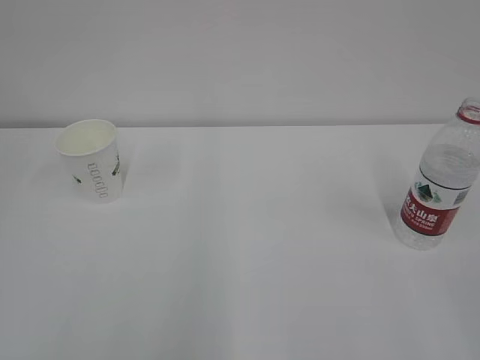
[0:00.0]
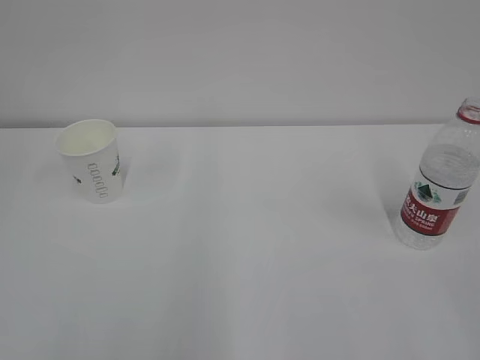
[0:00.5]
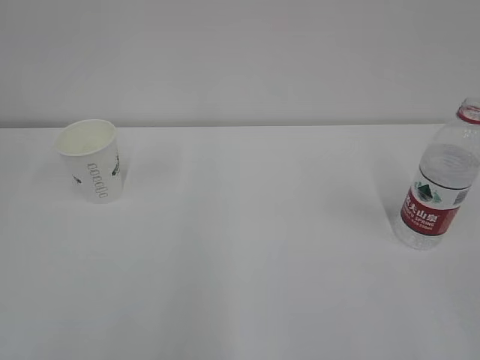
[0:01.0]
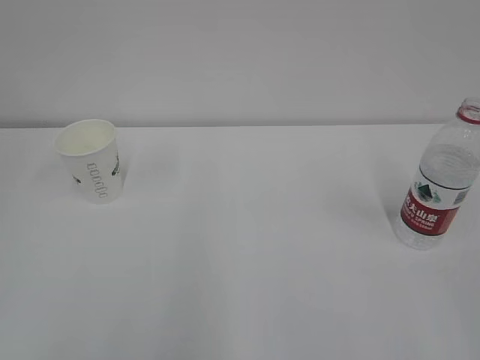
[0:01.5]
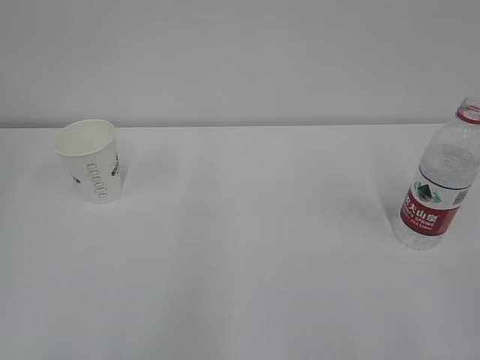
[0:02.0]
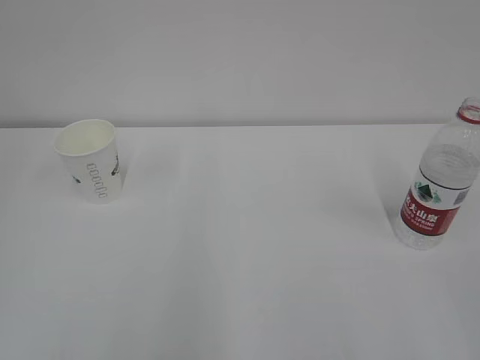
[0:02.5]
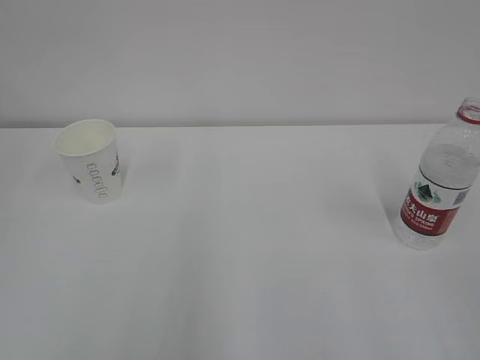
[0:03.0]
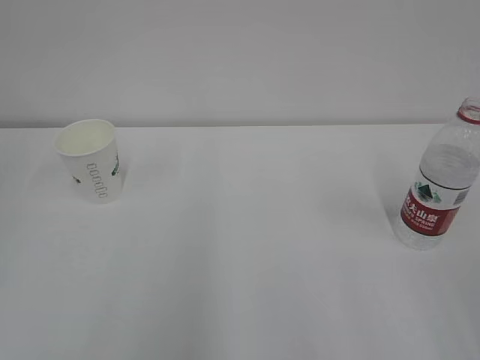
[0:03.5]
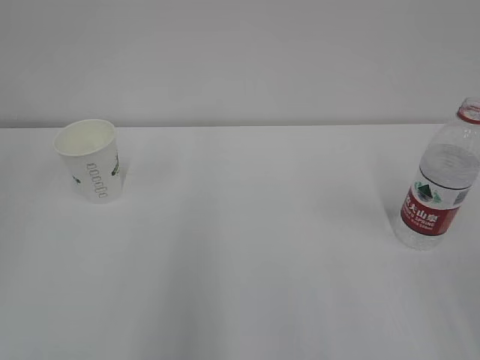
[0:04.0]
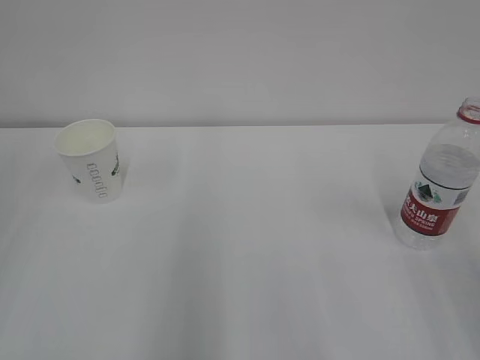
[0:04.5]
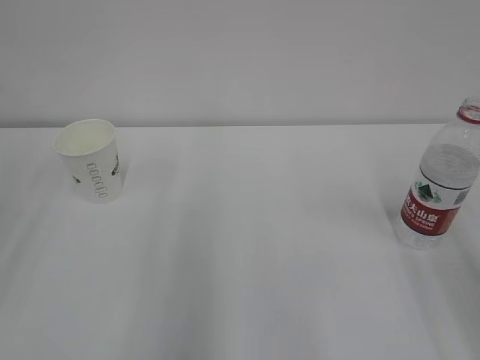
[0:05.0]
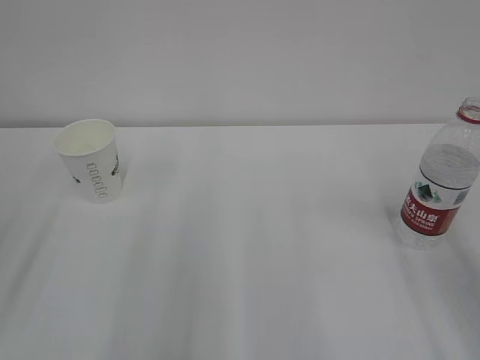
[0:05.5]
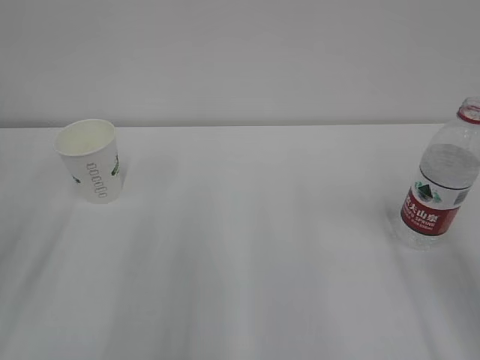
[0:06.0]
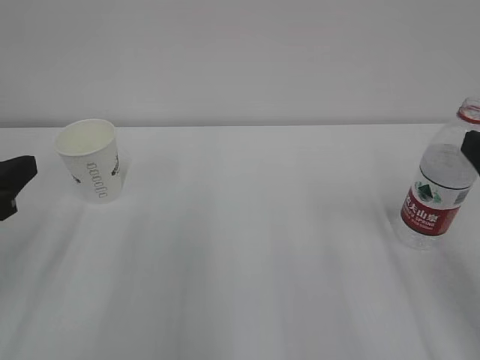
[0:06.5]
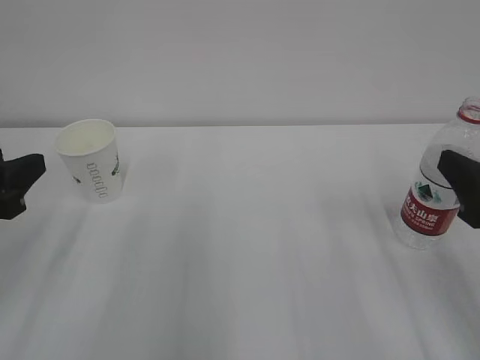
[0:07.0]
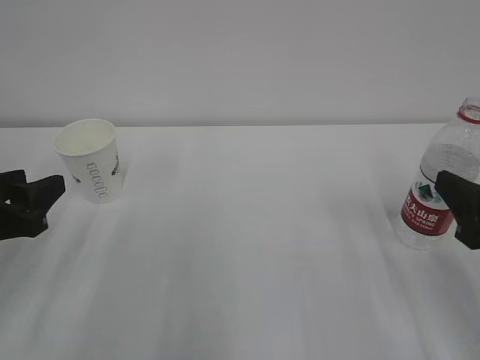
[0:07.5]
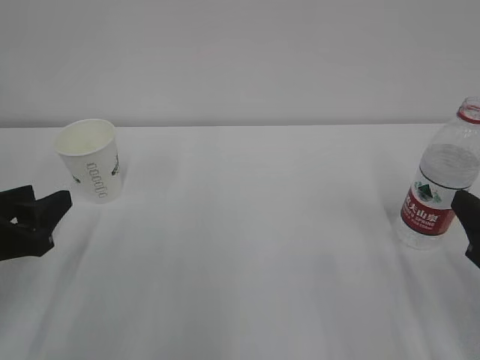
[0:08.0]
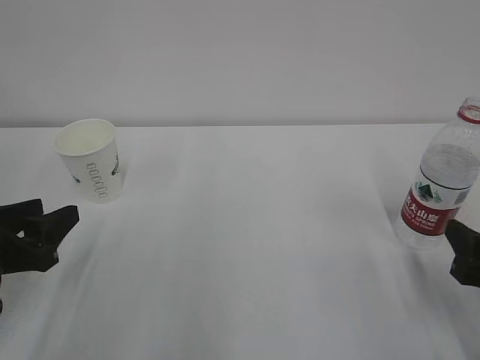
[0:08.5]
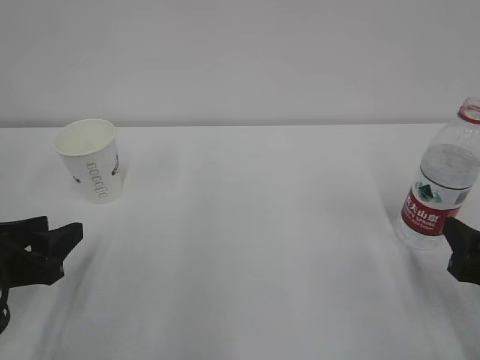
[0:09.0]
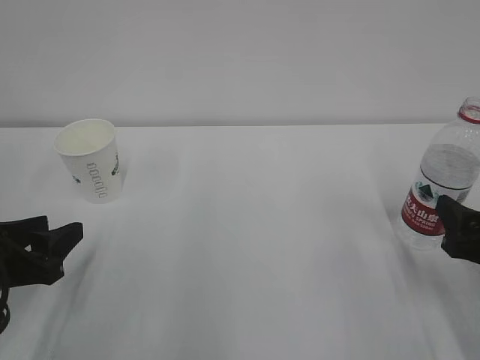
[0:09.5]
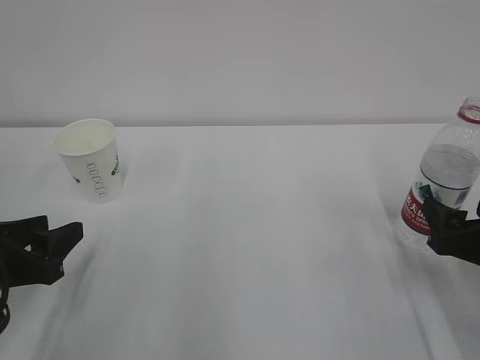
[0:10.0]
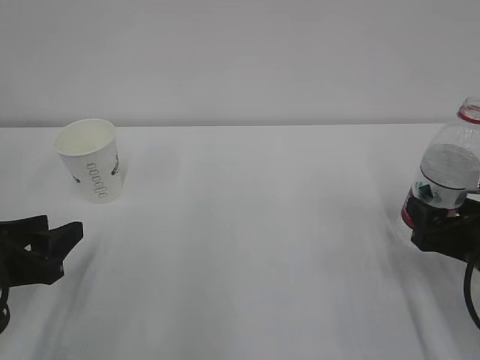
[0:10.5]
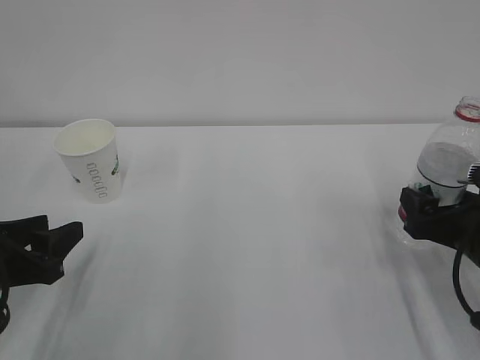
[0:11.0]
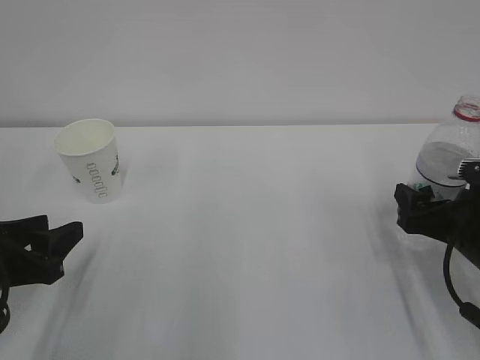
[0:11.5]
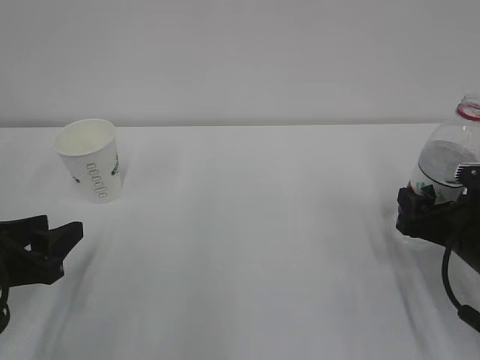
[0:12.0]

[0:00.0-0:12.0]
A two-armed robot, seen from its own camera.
0:06.0 to 0:08.0: Both grippers travel together downward, approximately 10 cm.
0:08.0 to 0:10.0: The right gripper moves some 5 cm, and opens up.
0:10.0 to 0:12.0: The right gripper changes place by about 5 cm, and closes up.

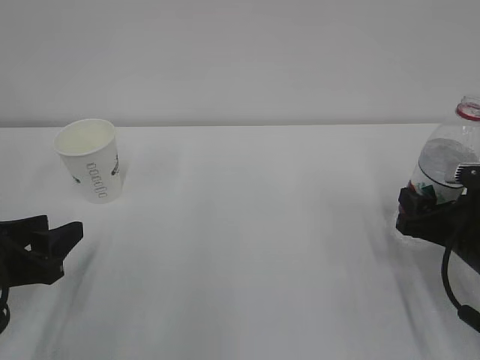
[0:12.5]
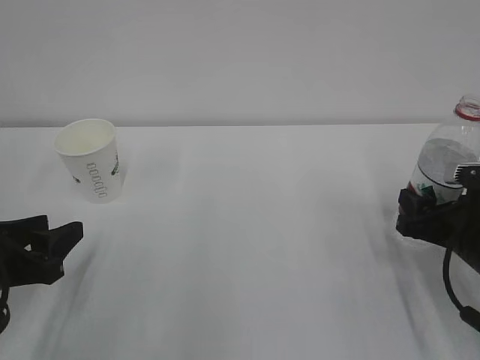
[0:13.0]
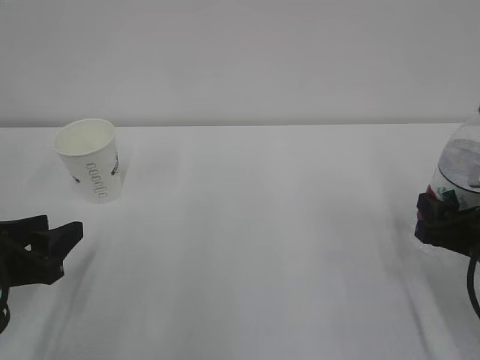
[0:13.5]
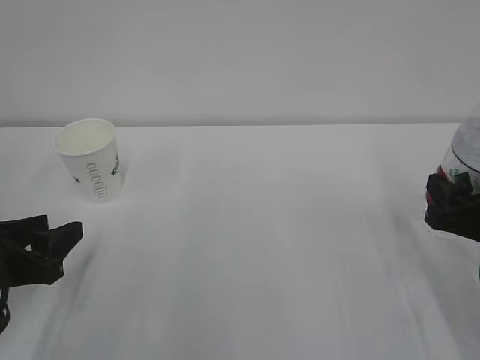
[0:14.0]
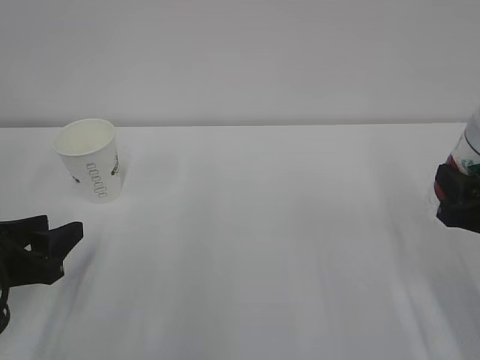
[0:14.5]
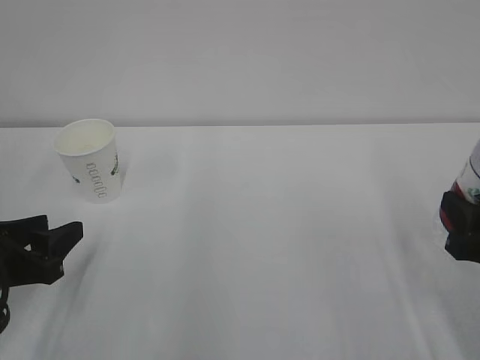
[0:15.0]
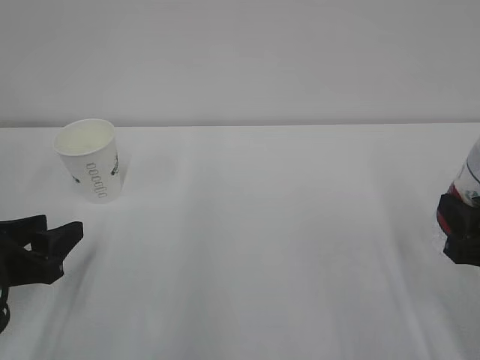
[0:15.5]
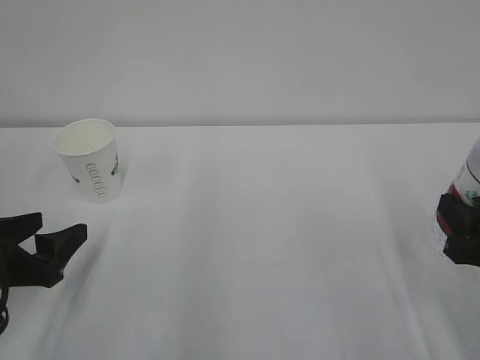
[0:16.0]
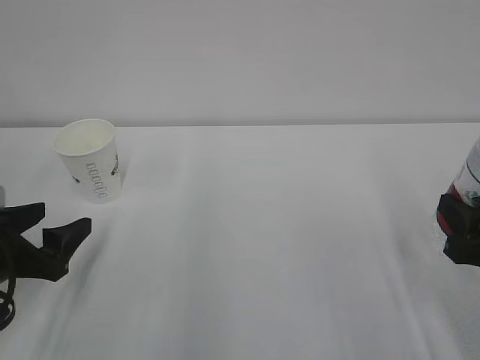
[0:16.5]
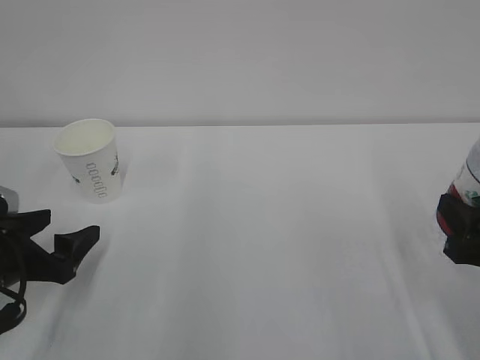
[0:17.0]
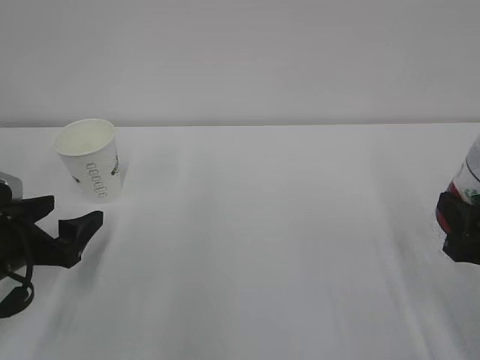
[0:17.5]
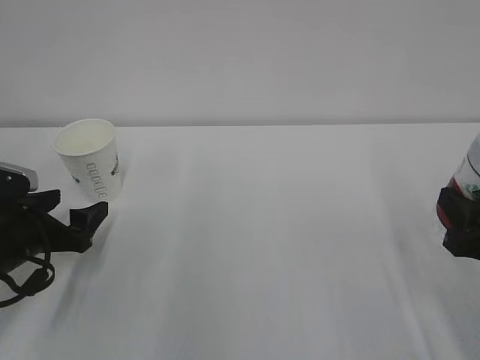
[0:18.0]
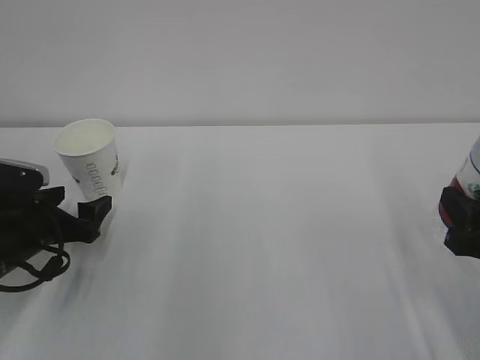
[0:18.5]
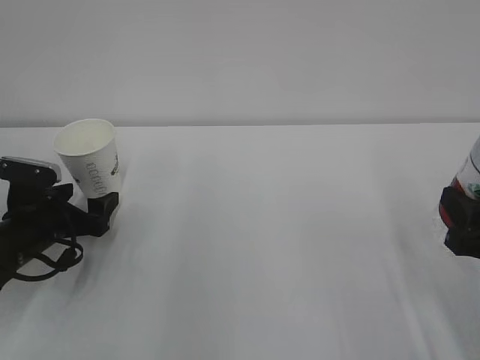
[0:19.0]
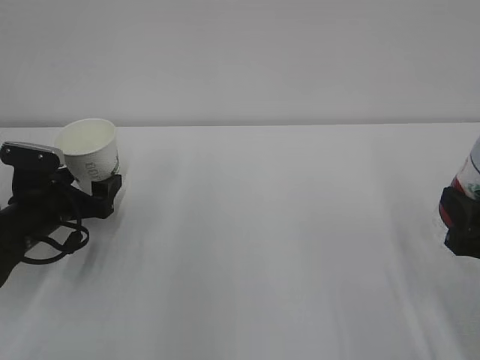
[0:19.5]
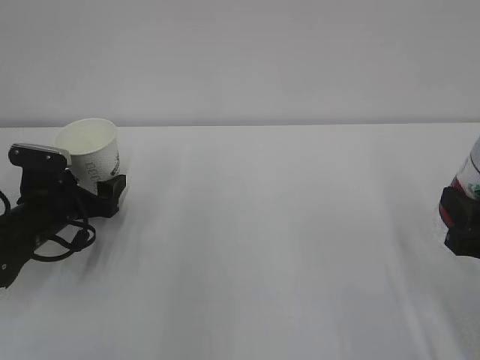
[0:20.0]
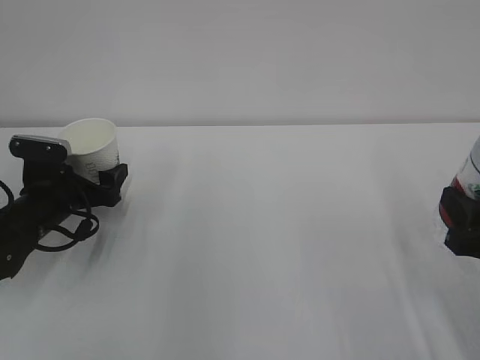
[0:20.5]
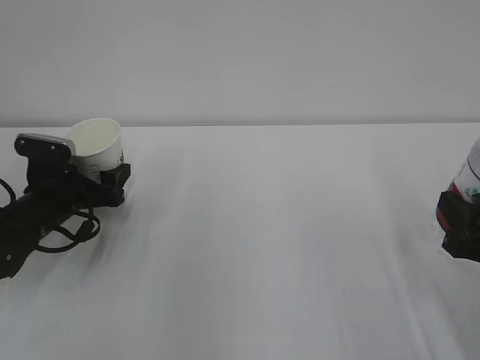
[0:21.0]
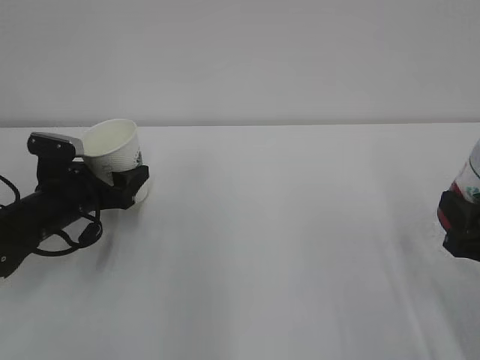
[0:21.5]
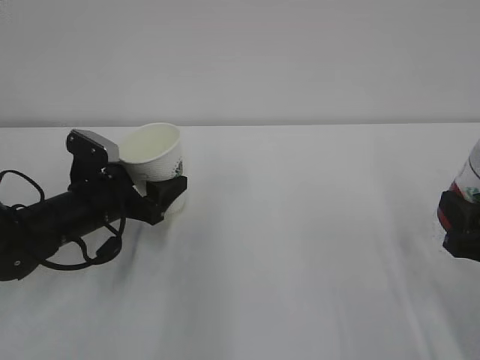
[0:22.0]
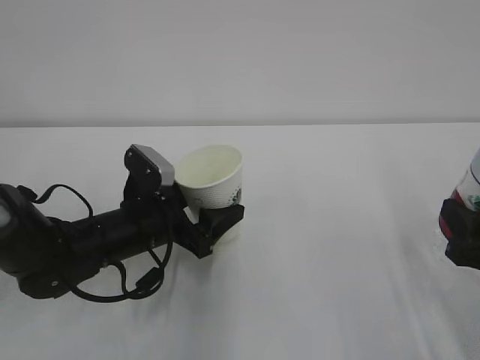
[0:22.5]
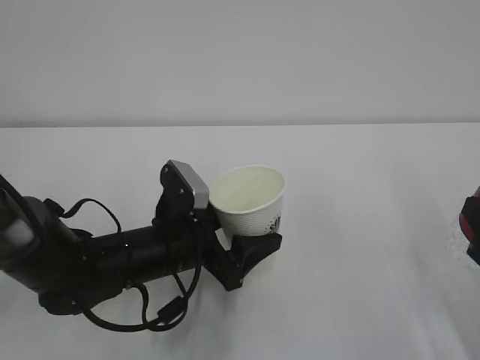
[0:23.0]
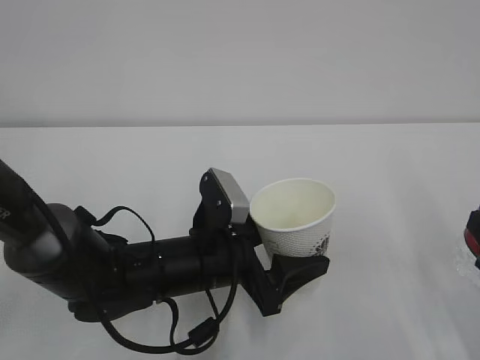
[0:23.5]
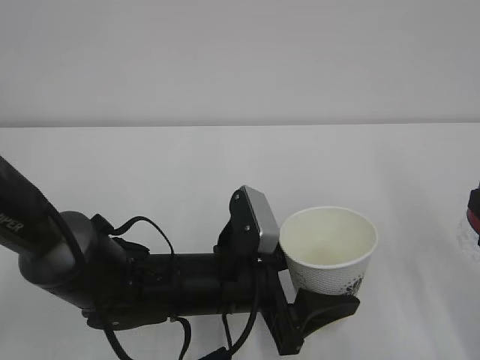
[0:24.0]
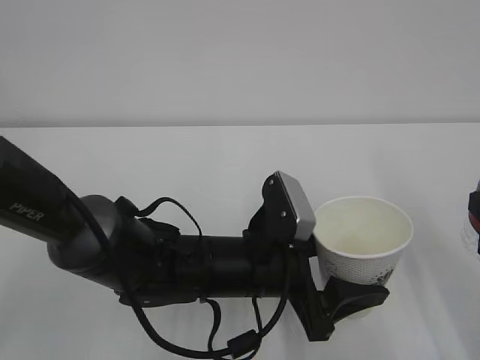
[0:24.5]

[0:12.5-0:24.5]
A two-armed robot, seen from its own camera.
0:12.5 to 0:14.5: The right gripper goes roughly 5 cm upward.
0:14.5 to 0:16.5: The left gripper opens its fingers.
0:16.5 to 0:18.5: The left gripper goes approximately 5 cm forward.
0:18.5 to 0:20.5: The left gripper heads forward, covering some 5 cm.
0:20.5 to 0:22.5: The left gripper goes some 15 cm to the right and backward, and closes up.
0:22.5 to 0:24.5: The left gripper heads to the right and backward, covering about 15 cm; the right gripper heads upward, covering about 5 cm.

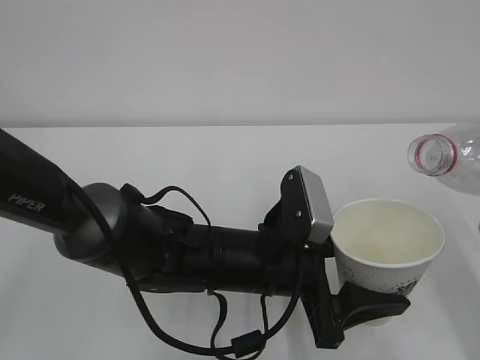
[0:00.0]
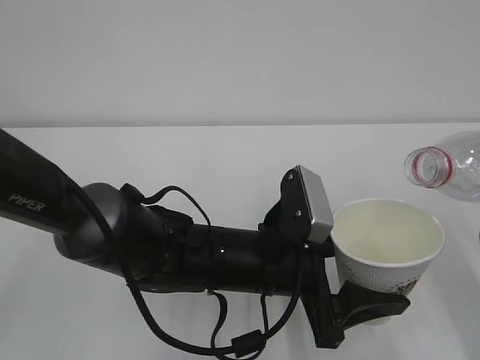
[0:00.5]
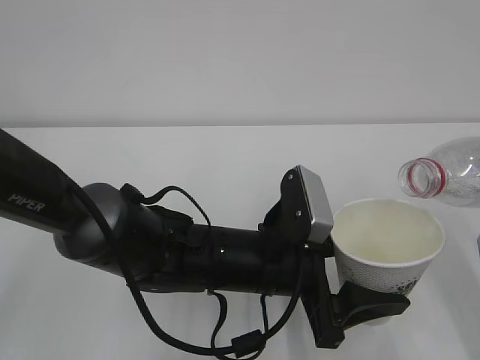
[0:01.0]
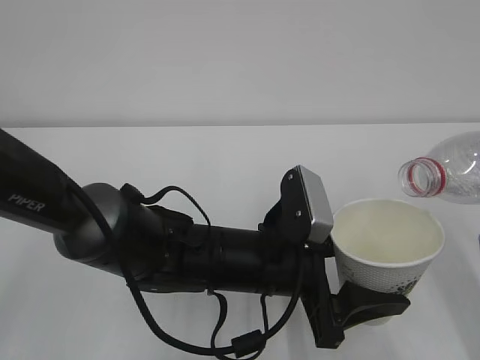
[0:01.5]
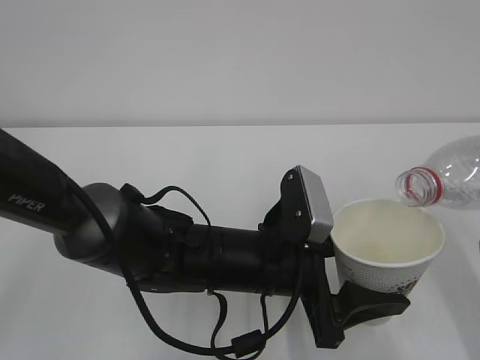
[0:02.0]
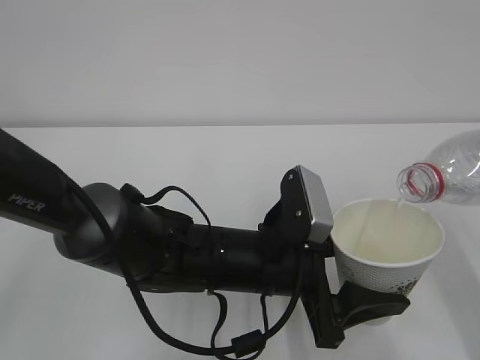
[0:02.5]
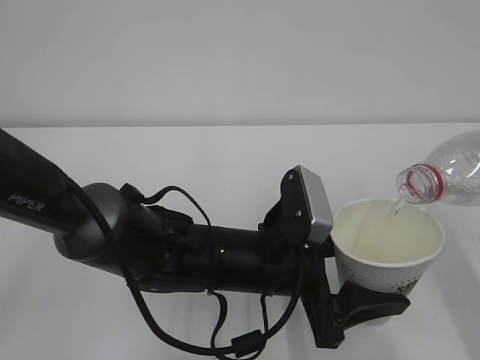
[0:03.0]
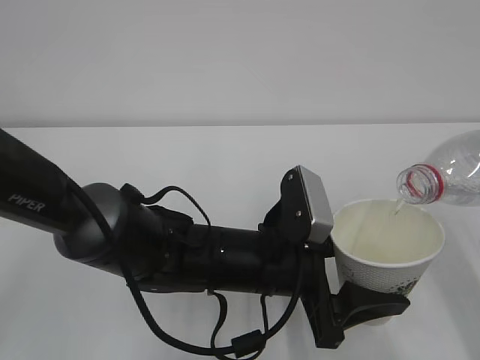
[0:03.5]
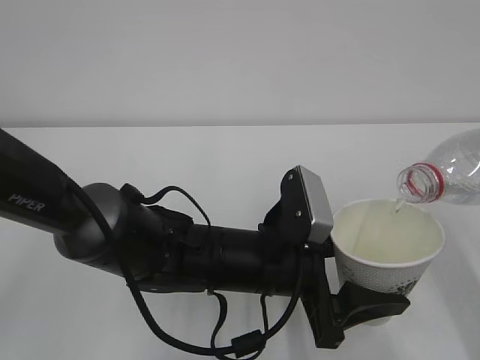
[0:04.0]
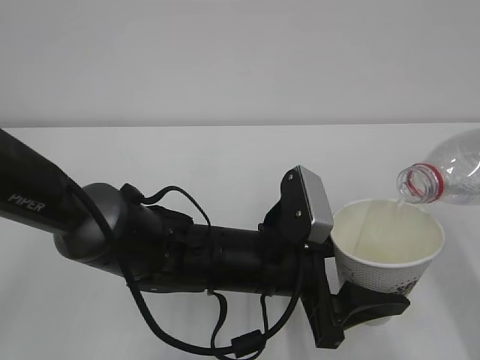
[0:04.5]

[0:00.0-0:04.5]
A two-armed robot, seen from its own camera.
0:00.0 to 0:02.0: The grippers make only small movements.
0:02.0 to 0:04.5: The two grippers keep their place.
